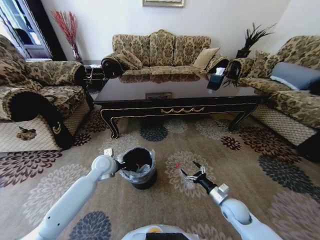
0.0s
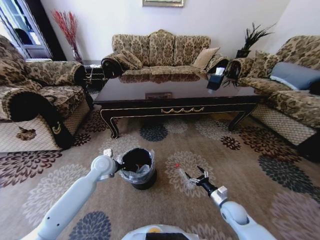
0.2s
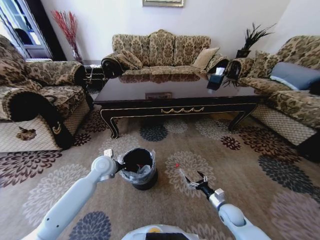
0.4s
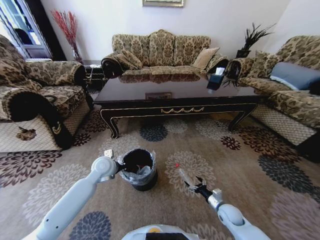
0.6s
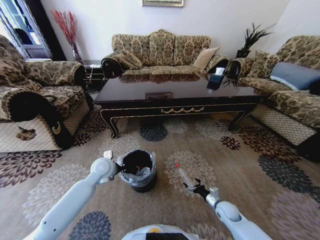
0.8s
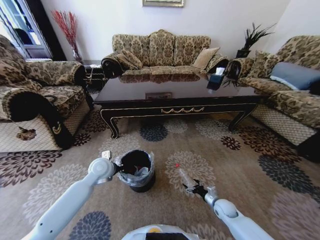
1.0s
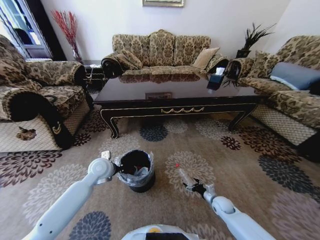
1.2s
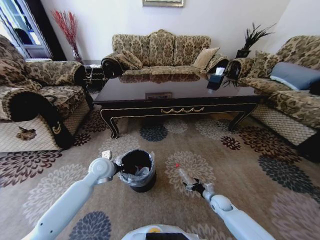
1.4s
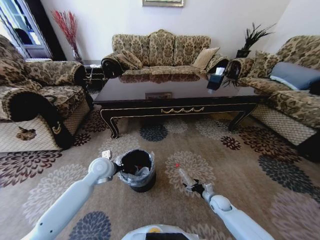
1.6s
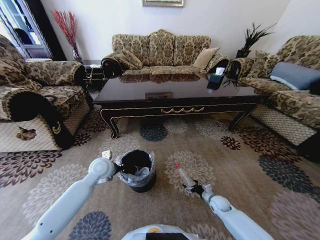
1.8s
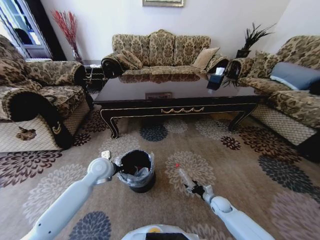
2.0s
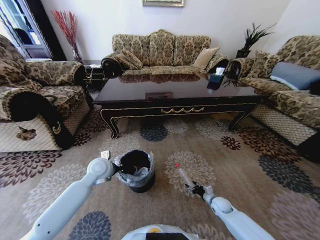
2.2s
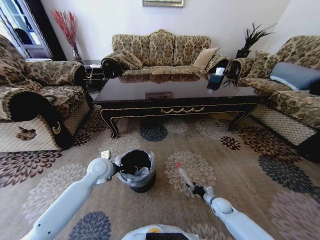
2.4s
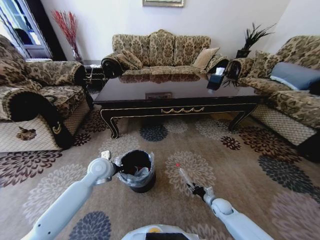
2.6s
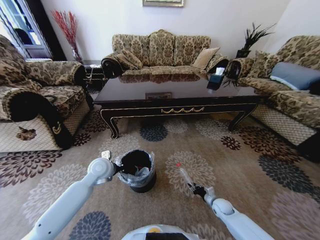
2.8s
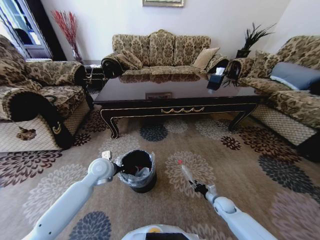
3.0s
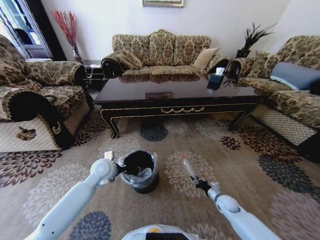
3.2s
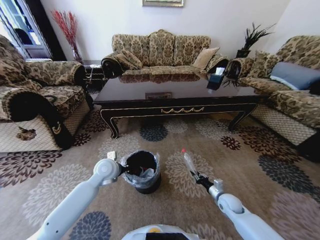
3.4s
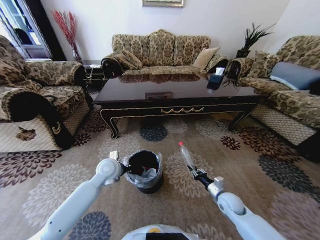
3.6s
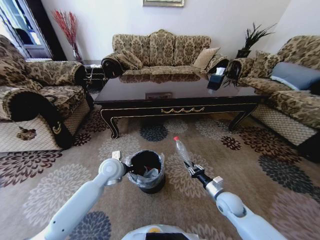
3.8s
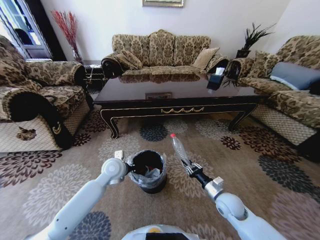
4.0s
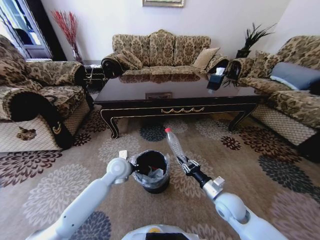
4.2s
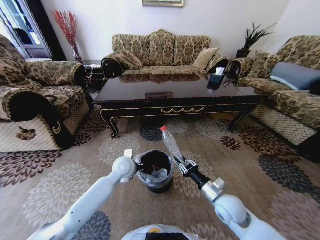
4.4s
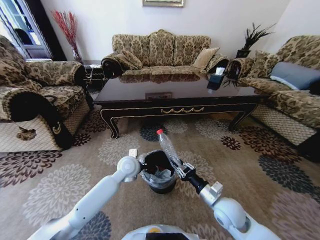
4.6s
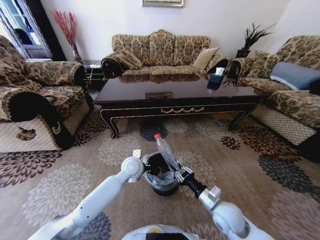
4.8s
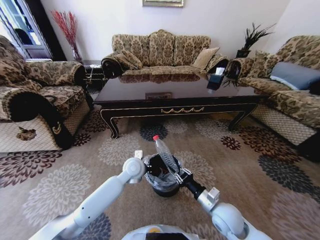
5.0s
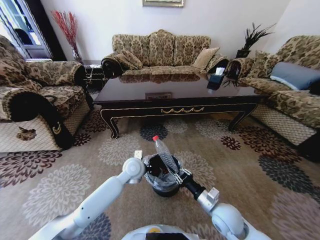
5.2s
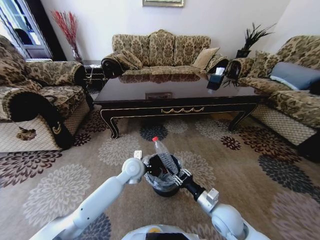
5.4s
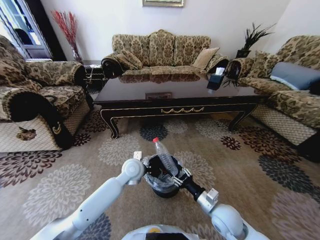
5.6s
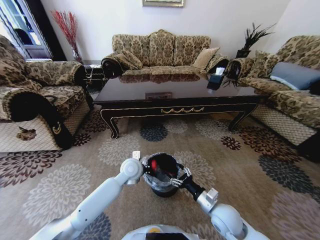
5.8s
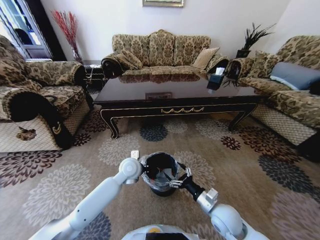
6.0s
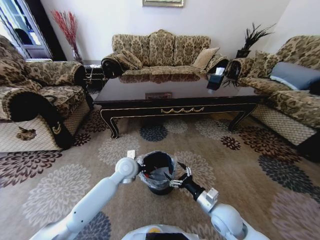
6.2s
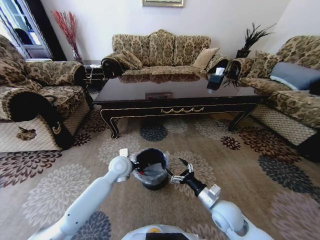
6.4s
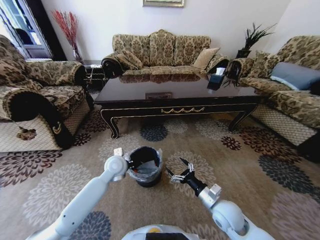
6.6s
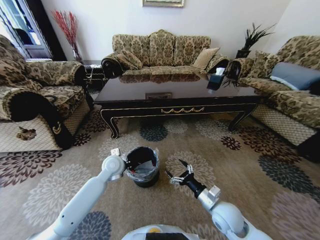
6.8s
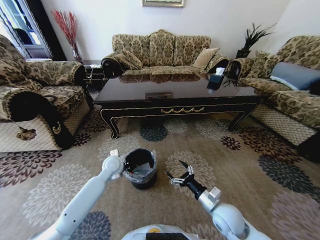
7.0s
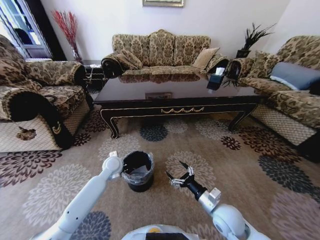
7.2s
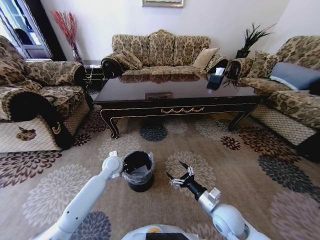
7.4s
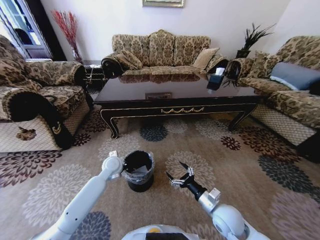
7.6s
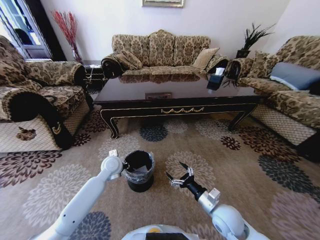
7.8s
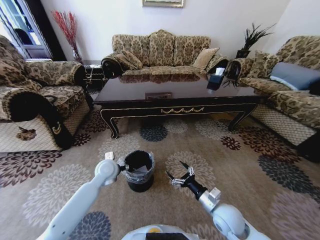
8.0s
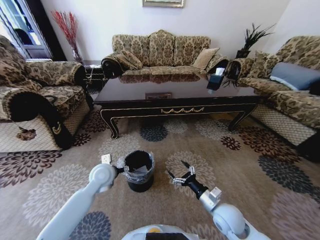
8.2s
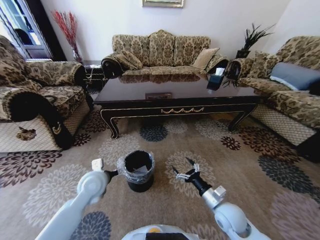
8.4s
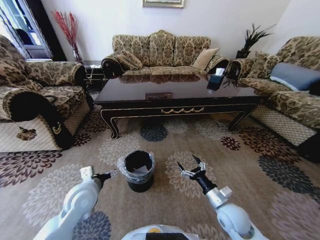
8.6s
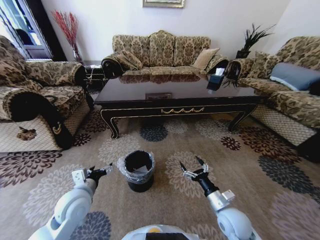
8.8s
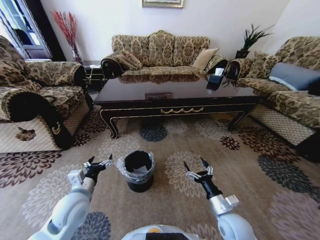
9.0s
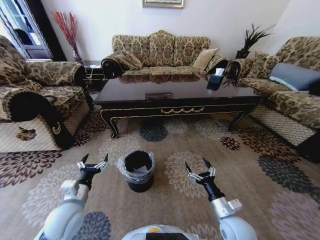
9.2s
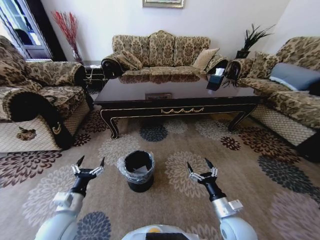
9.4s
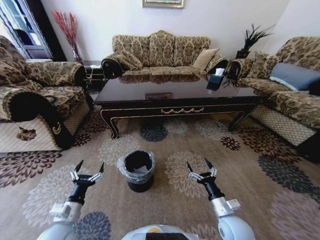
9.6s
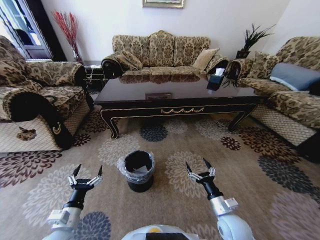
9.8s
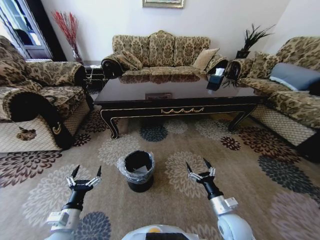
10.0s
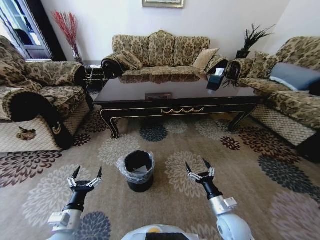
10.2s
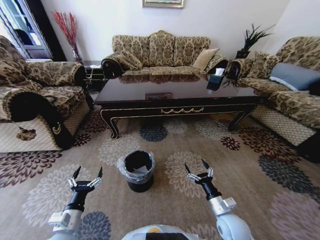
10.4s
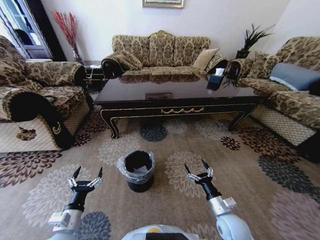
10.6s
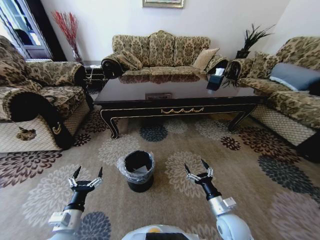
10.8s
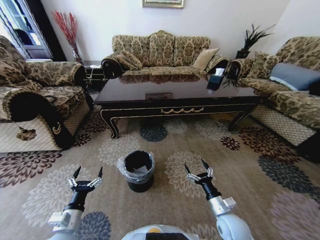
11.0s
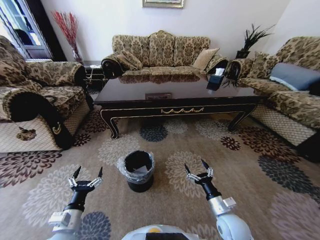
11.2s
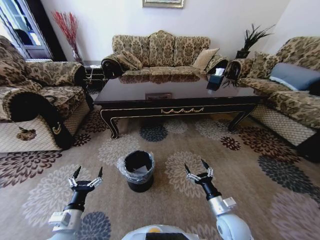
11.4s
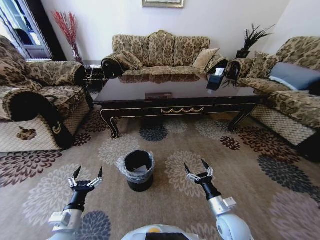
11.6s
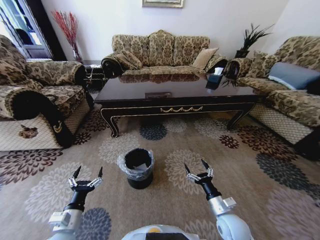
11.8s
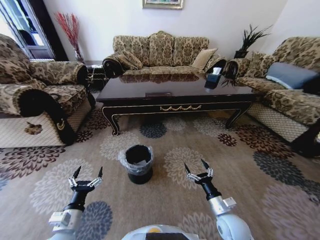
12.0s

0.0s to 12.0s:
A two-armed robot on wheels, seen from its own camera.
Task of the whole recording: Move to the front of the table and pick up the trash from the floor, then place it into the trash bin.
0.0s to 1.6s: The right gripper goes approximately 10 cm downward and forward.
1.6s to 3.0s: The right gripper closes its fingers.
3.0s to 4.4s: The left gripper is displaced to the right by approximately 10 cm. The right gripper is displaced upward and to the left by some 25 cm.
4.4s to 6.0s: The right gripper opens its fingers.
6.0s to 7.6s: The left gripper goes about 10 cm to the left.
7.6s to 9.0s: The left gripper travels backward and to the left by about 20 cm, and opens.
9.0s to 10.4s: The left gripper heads backward and downward, covering some 10 cm.
10.4s to 12.0s: The two grippers keep their place.

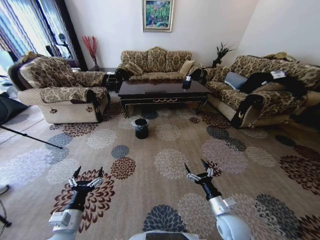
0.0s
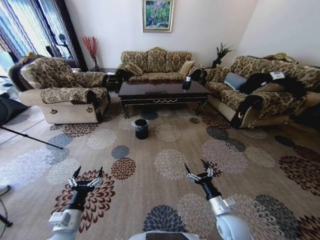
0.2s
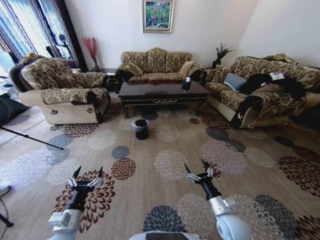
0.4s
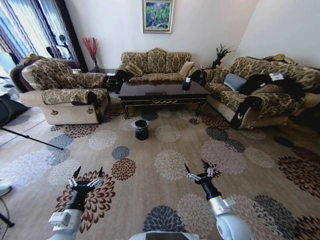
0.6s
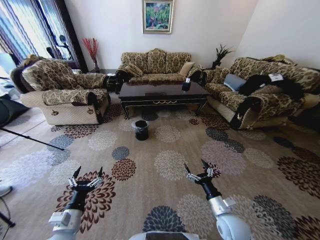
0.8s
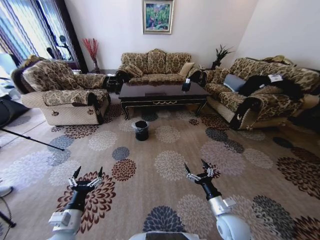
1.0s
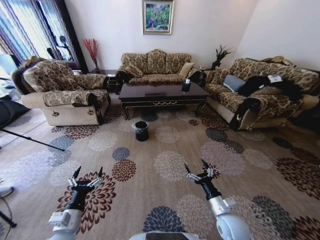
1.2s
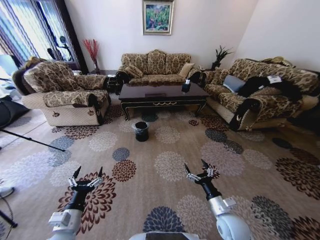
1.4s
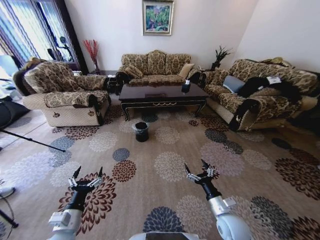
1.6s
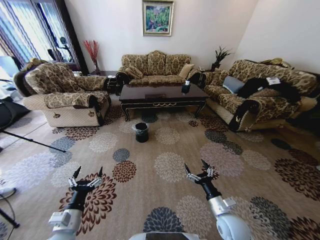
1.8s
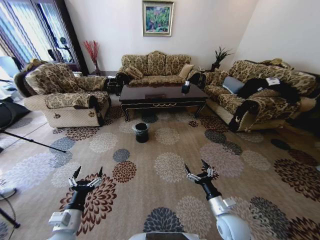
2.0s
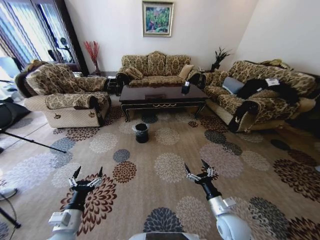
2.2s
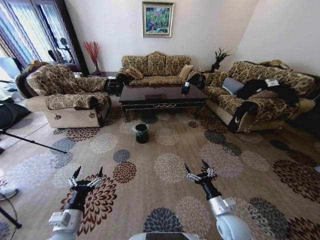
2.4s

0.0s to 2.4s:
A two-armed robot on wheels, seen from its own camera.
Task of the whole recording: Move to the front of the table and pick up the trash from the floor, then place it into the trash bin.
0.0s to 2.4s: The two grippers keep their place.
